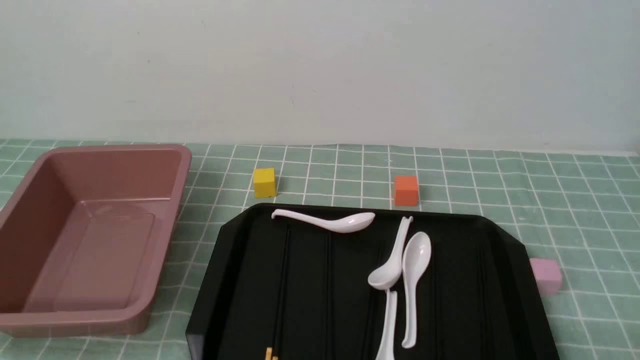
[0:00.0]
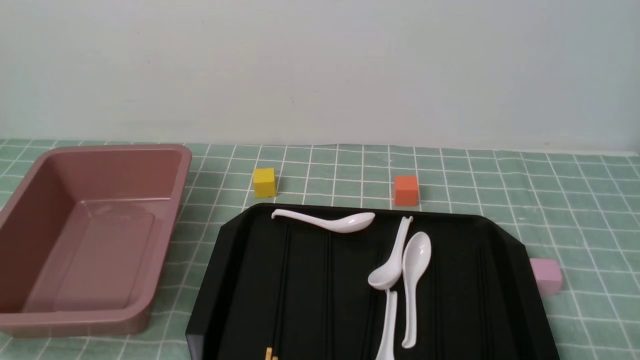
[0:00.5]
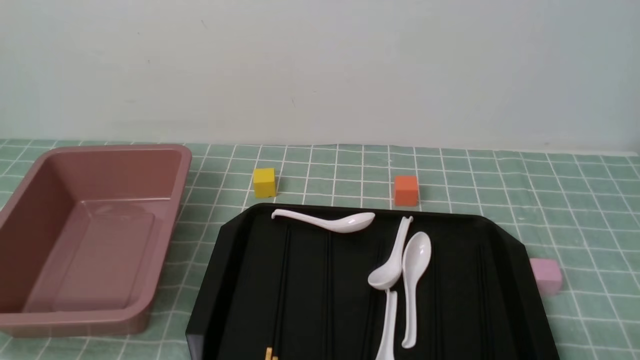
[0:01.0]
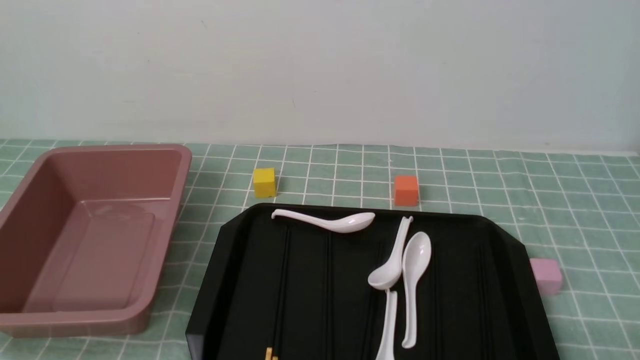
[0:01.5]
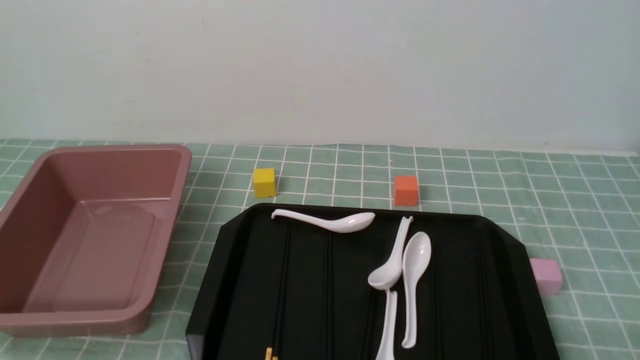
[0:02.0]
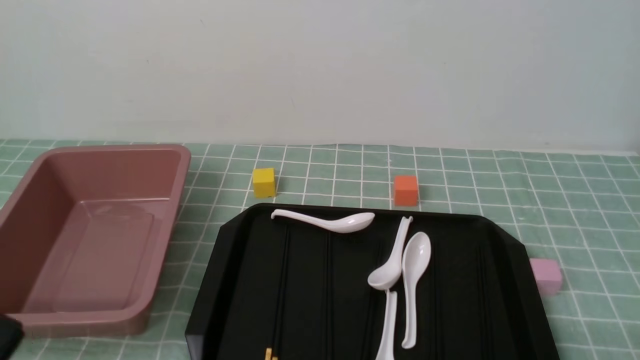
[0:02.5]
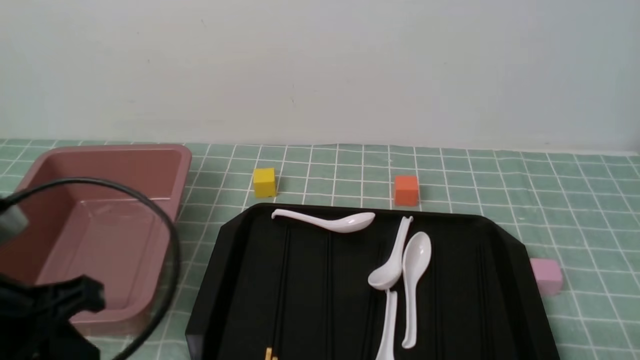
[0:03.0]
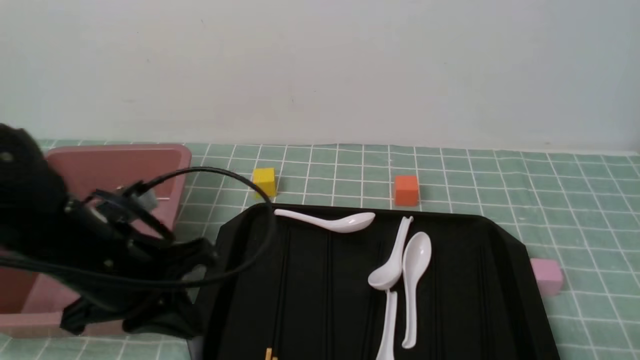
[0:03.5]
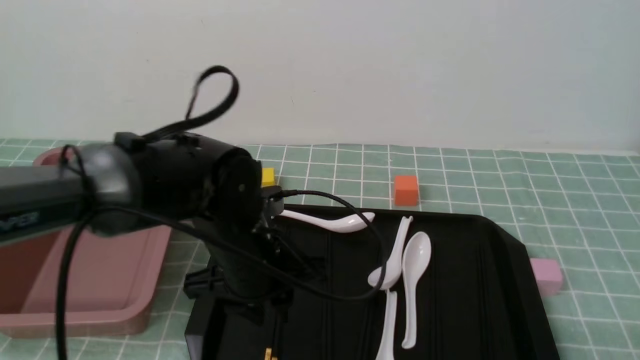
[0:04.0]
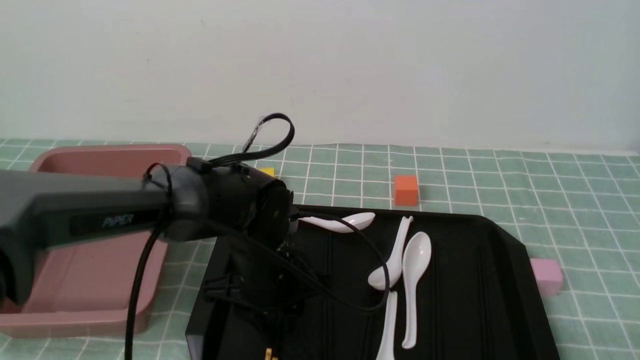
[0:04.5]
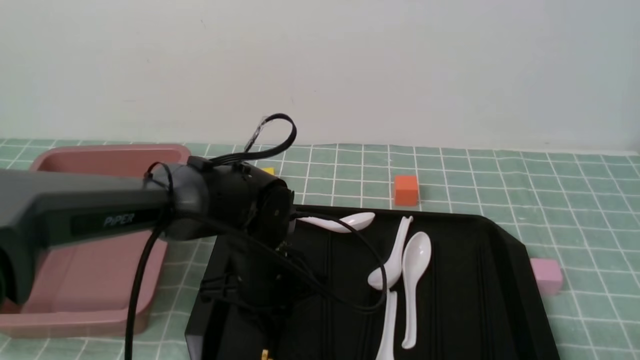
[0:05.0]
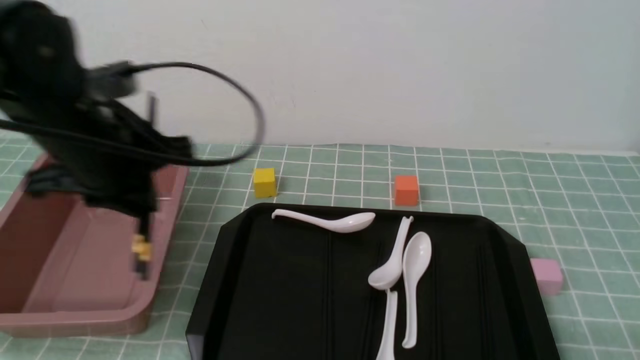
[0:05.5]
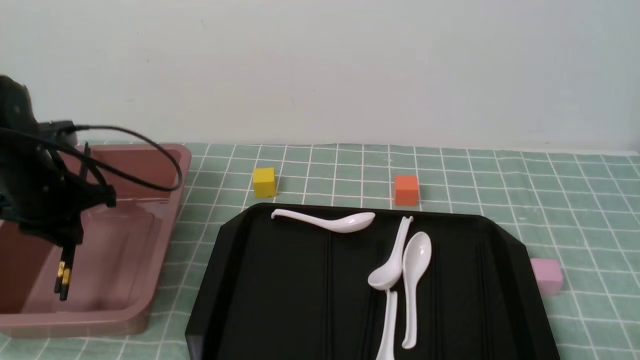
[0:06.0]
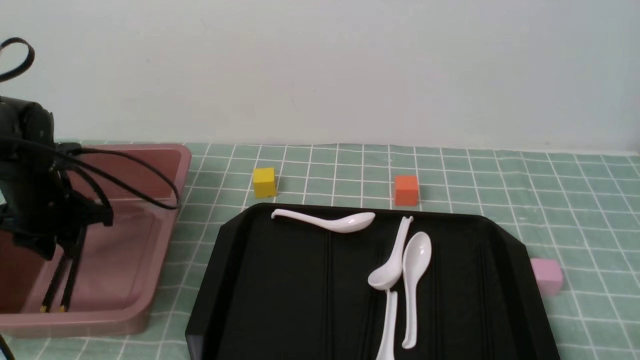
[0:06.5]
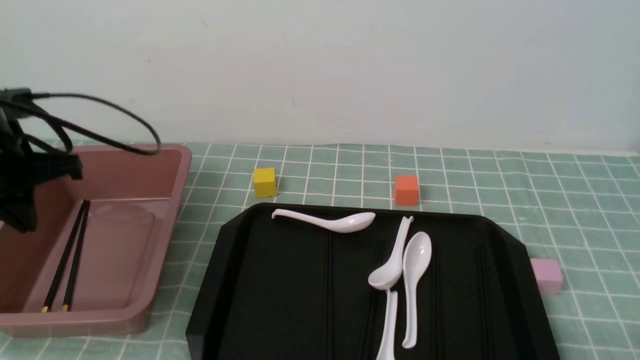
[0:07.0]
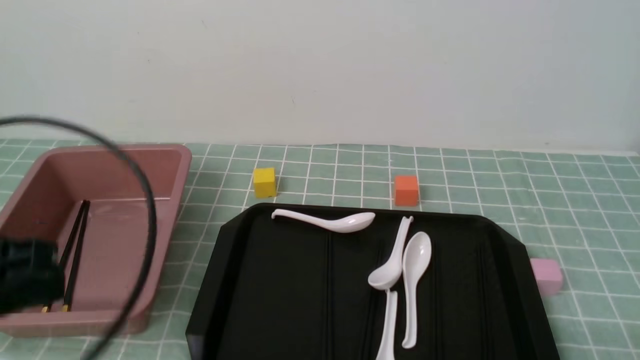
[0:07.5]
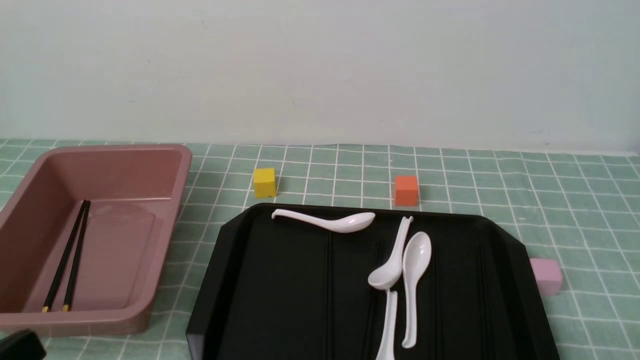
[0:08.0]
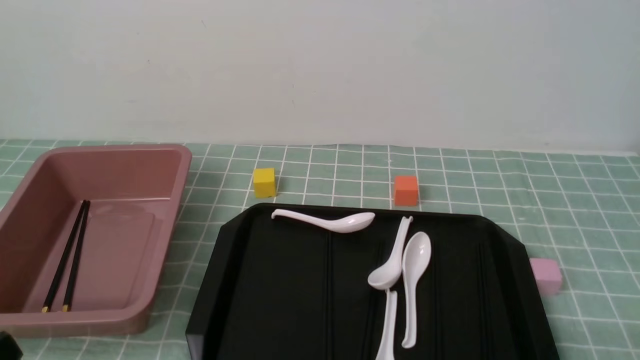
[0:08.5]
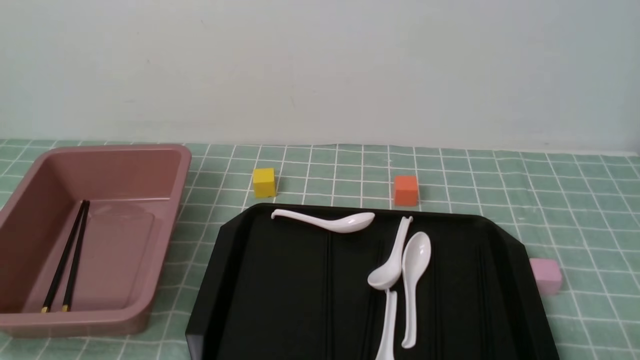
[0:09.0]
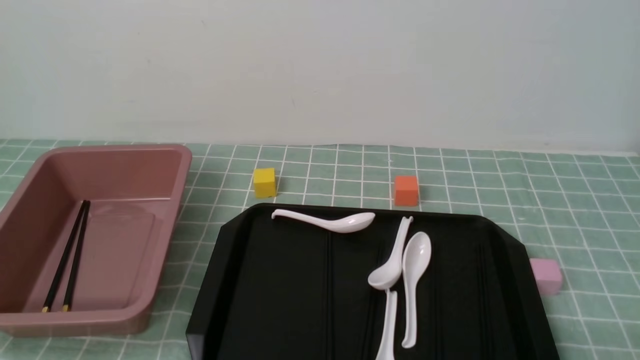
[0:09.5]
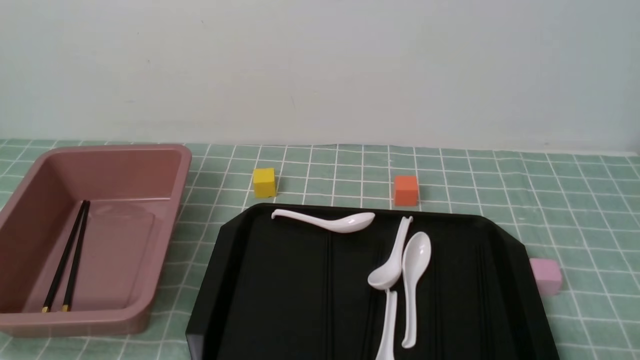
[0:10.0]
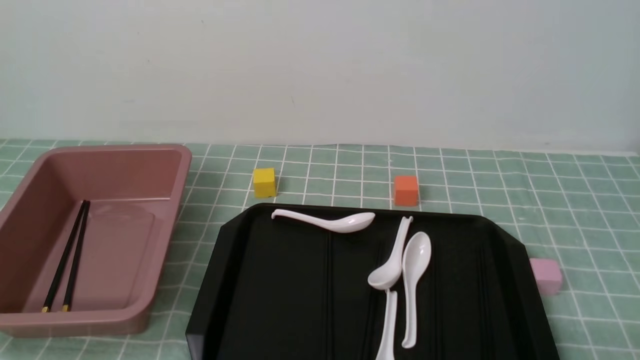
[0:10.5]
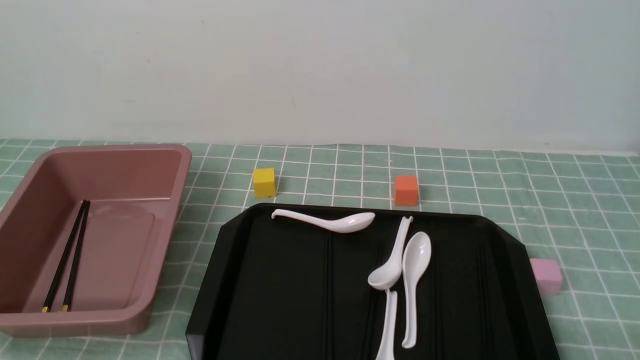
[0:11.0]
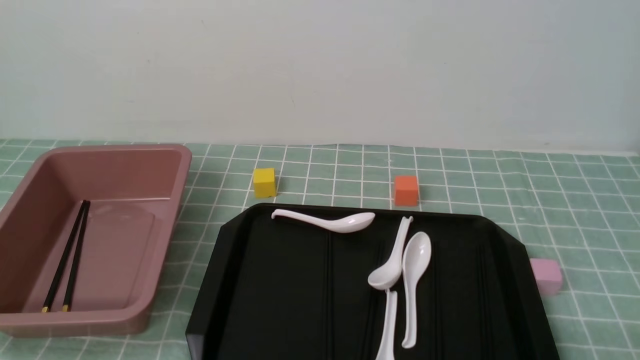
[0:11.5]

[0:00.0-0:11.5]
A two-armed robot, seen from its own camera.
Step, 0:00.0 to 0:05.0: use the left arm to grab a pair of chopsticks.
Step, 0:05.5 to 0:06.5: use the left arm to put the chopsticks into the lunch box.
0:02.0 to 0:04.0: The left gripper heads forward and to the right, covering some 30 cm, and closes and opens again.
0:04.0 to 0:06.0: The left gripper moves to the left, approximately 25 cm, and closes.
0:06.0 to 0:07.5: The left gripper goes about 25 cm backward and upward, and closes.
0:07.5 to 0:09.5: The left gripper is displaced downward and backward by about 20 cm.

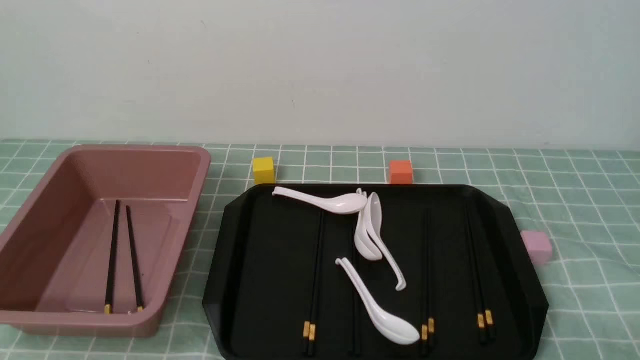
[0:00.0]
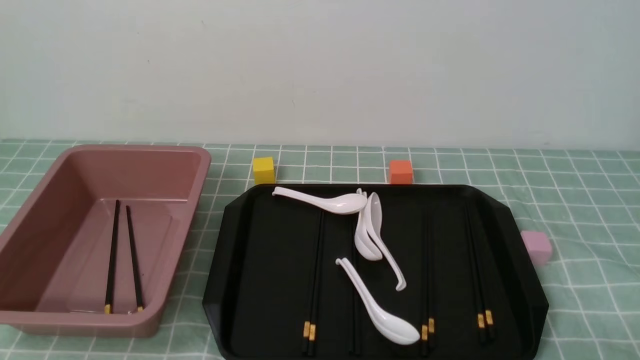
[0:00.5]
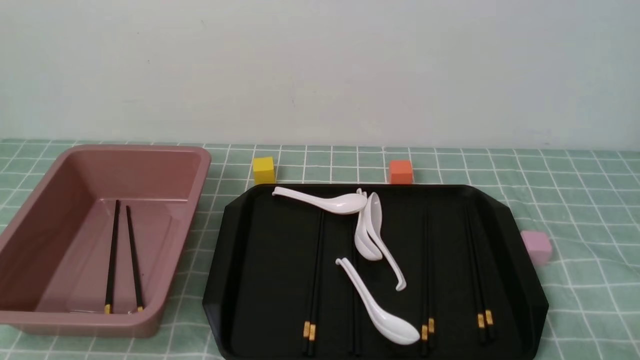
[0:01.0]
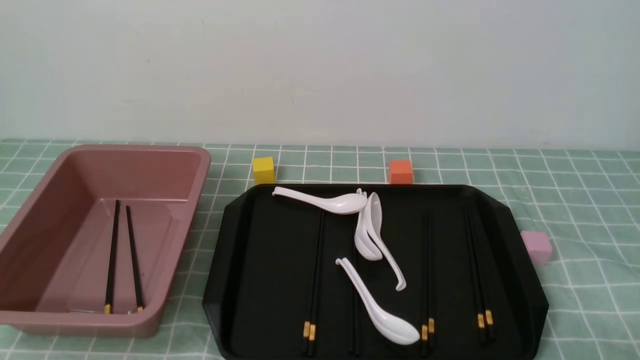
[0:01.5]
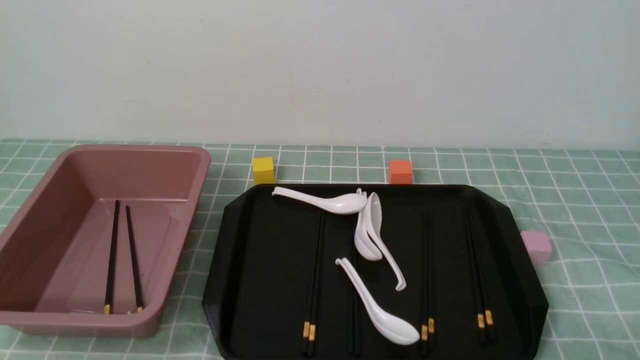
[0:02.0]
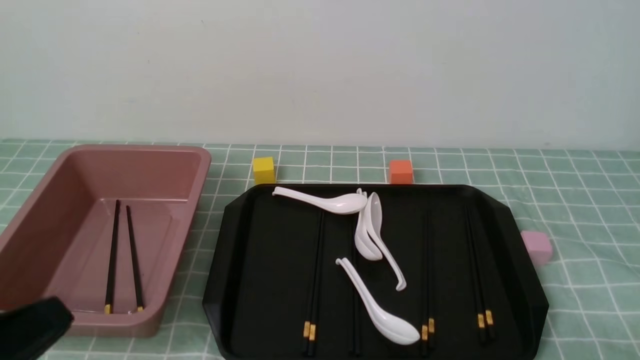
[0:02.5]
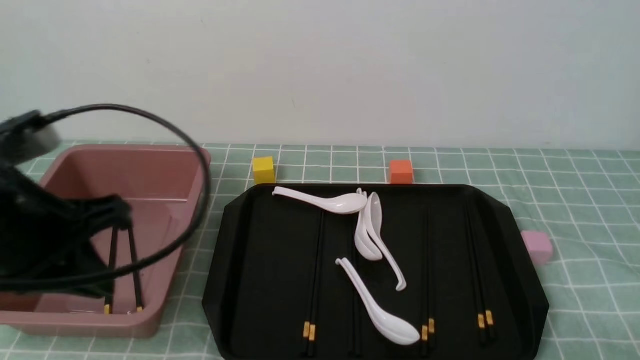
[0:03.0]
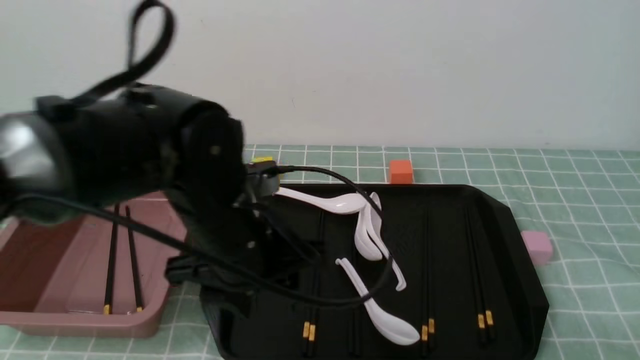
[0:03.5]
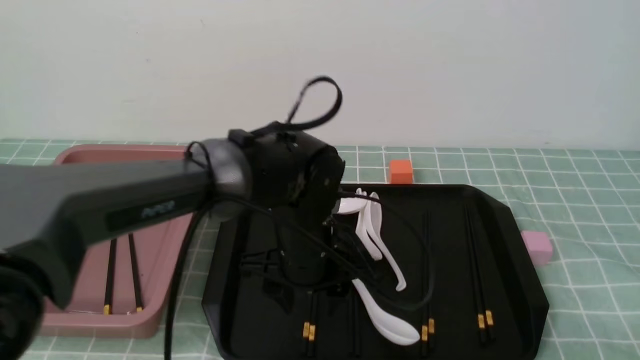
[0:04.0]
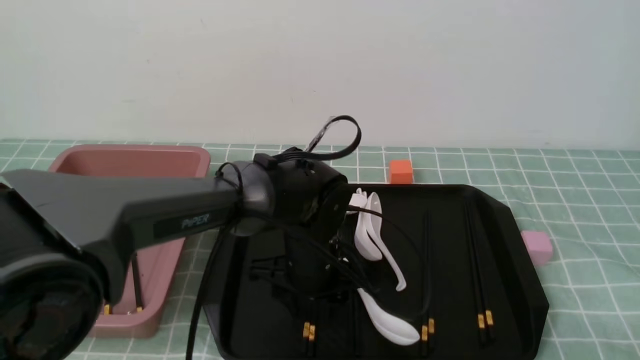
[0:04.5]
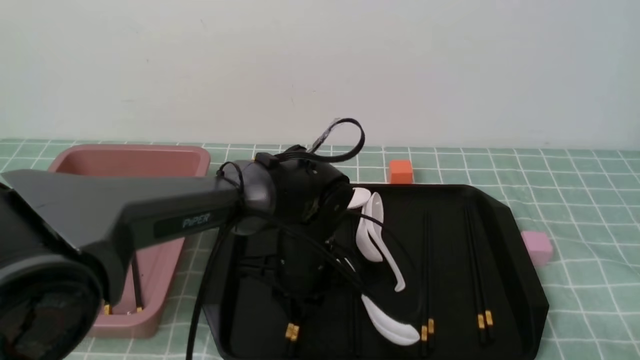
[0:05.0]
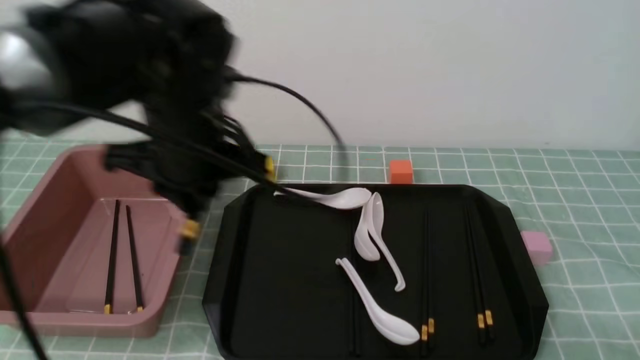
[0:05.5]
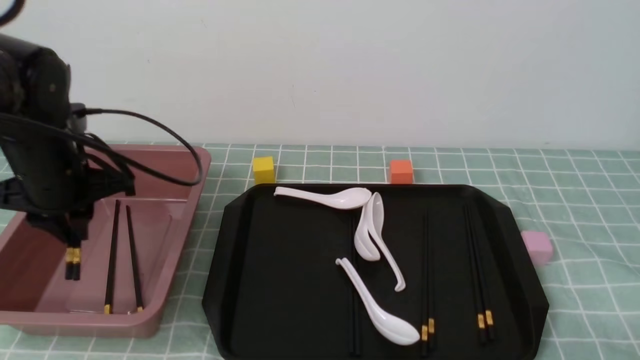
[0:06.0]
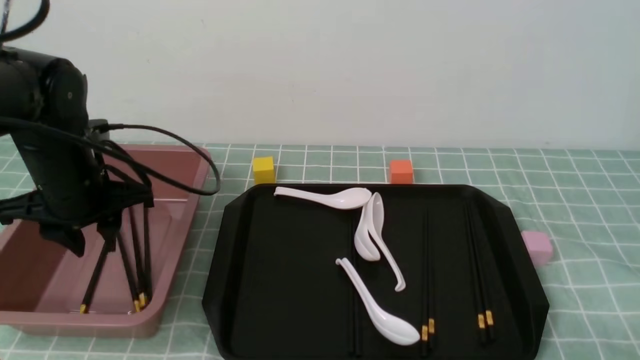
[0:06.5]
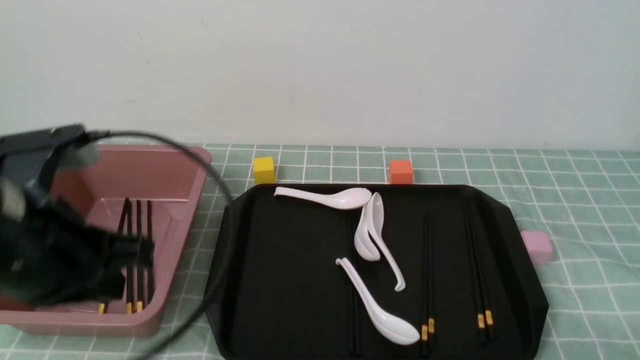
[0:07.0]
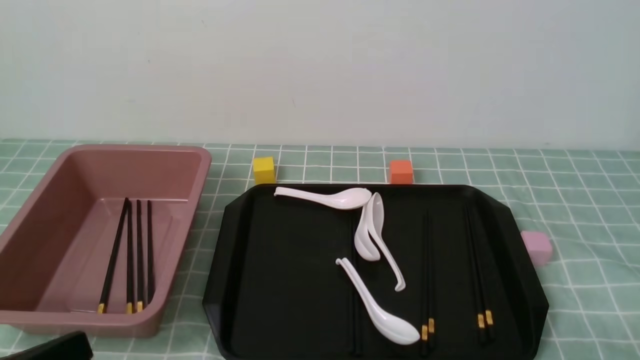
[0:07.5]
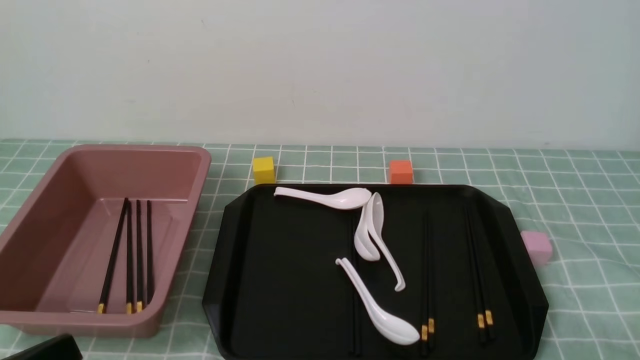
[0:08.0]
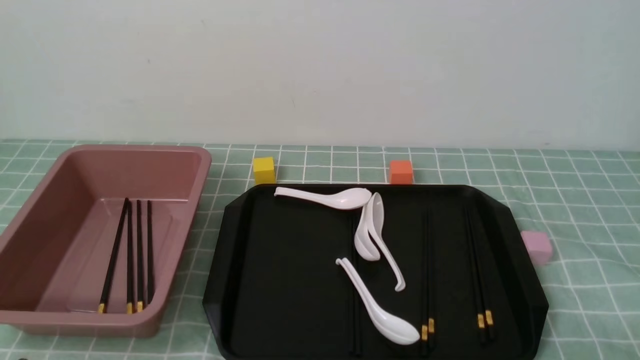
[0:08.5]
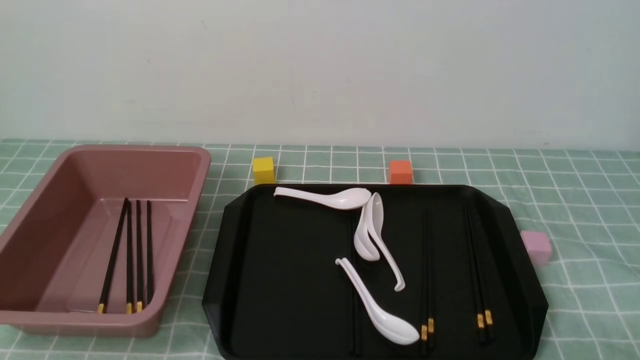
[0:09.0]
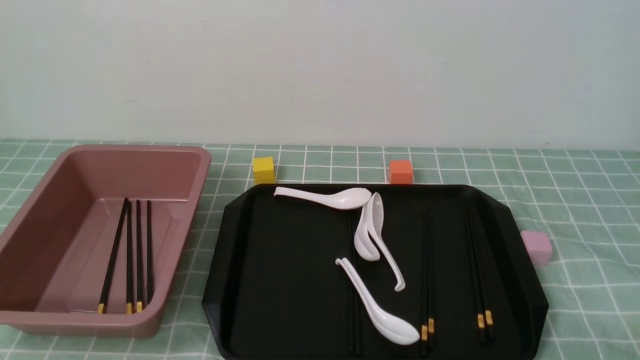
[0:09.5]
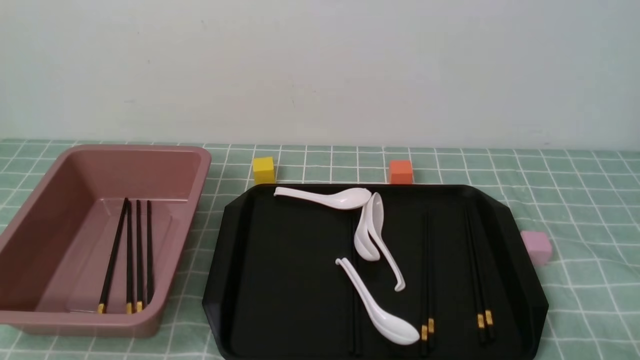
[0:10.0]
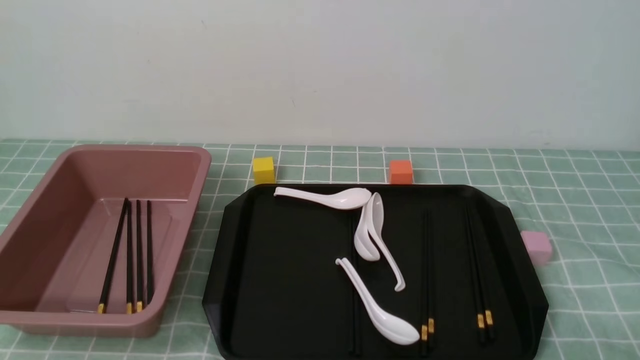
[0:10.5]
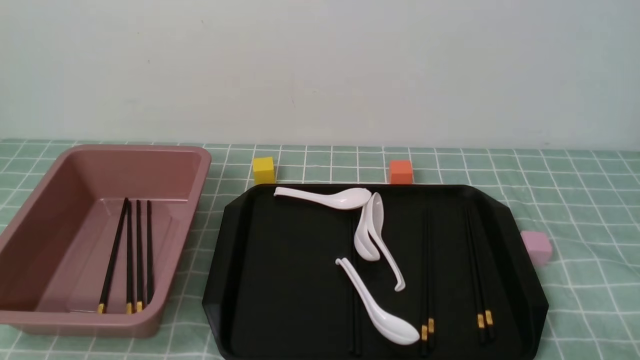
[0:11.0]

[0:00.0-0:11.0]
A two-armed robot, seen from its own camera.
Step, 0:00.0 to 0:05.0: use the left arm to grab a pair of chopsticks.
Step, 0:05.5 to 0:06.5: use the left arm to put the chopsticks into the lunch box.
0:02.0 to 0:03.5: The left gripper travels forward and to the right by approximately 30 cm, and opens.
0:03.5 to 0:05.5: The left gripper heads to the left and forward, covering some 10 cm, moves some 10 cm downward and comes back, and closes its fingers.
0:05.5 to 0:07.5: The left gripper moves backward, roughly 25 cm.
0:07.5 to 0:09.0: The left gripper goes approximately 10 cm downward.
0:09.0 to 0:11.0: Neither gripper changes place.
